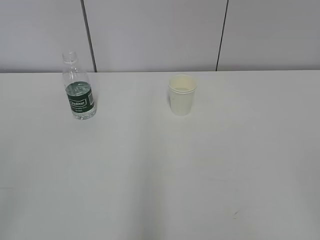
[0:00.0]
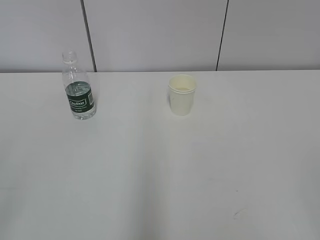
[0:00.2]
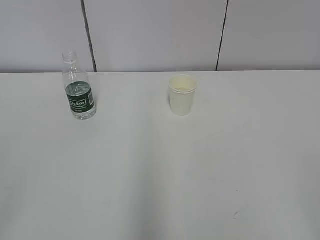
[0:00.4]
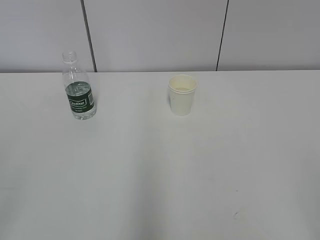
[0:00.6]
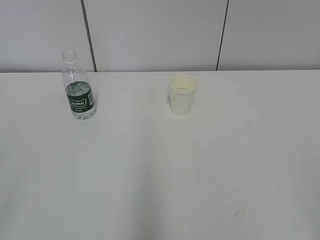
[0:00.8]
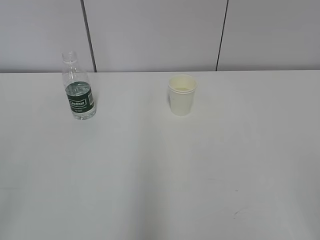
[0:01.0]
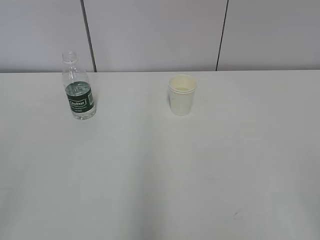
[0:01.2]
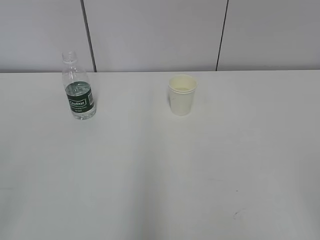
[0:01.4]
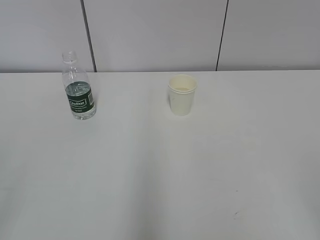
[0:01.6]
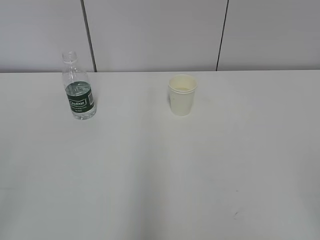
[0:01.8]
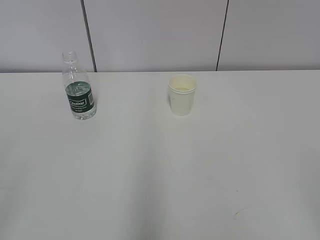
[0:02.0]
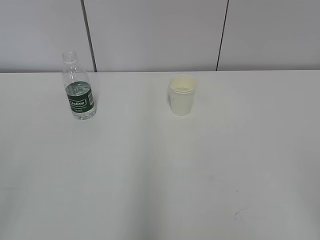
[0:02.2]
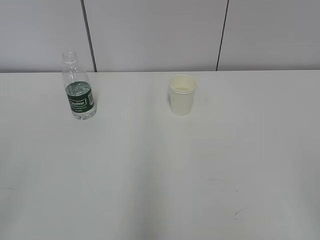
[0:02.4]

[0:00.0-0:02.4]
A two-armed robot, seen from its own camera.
0:01.2 to 0:02.4: Both grippers stay put.

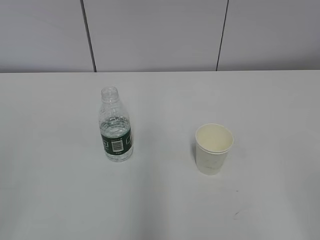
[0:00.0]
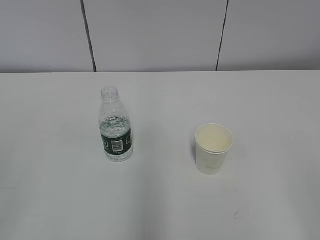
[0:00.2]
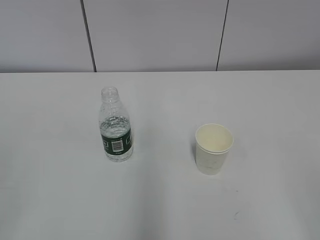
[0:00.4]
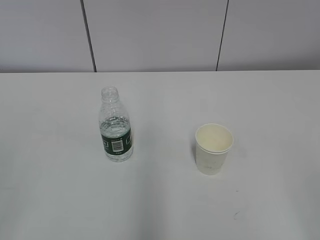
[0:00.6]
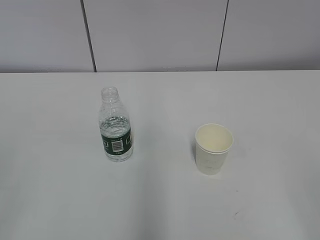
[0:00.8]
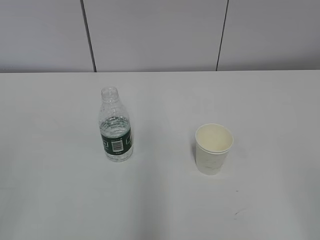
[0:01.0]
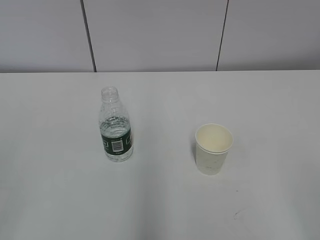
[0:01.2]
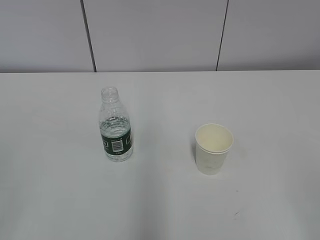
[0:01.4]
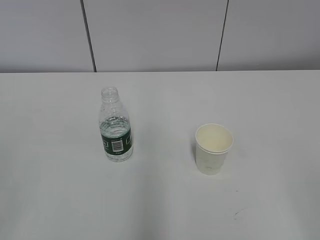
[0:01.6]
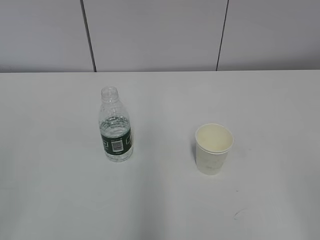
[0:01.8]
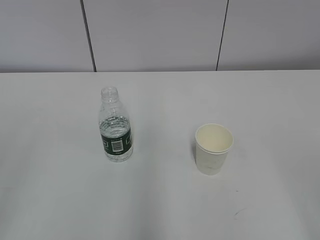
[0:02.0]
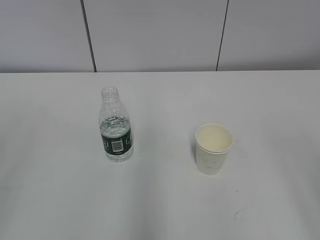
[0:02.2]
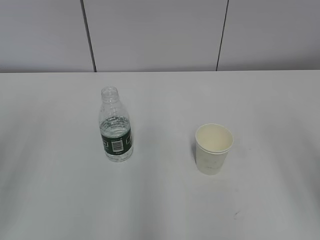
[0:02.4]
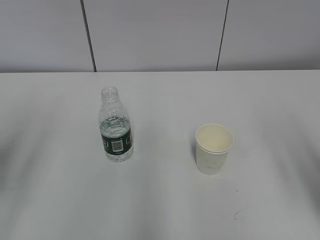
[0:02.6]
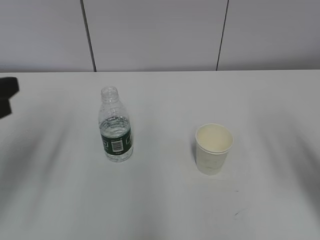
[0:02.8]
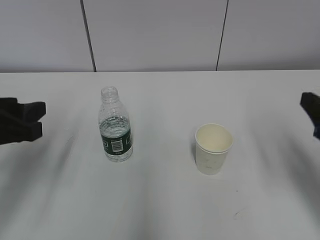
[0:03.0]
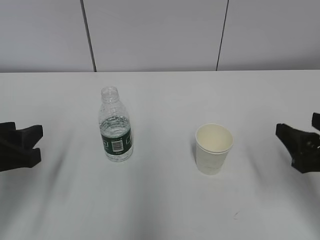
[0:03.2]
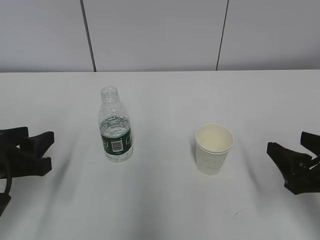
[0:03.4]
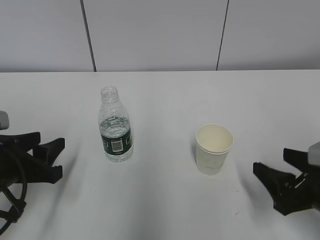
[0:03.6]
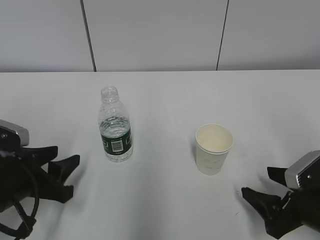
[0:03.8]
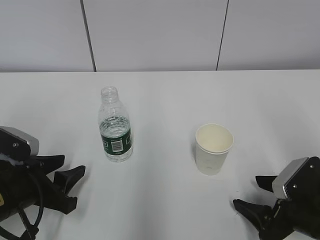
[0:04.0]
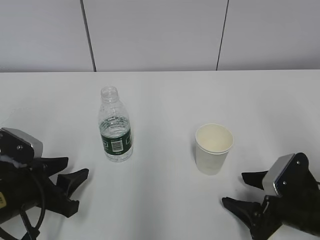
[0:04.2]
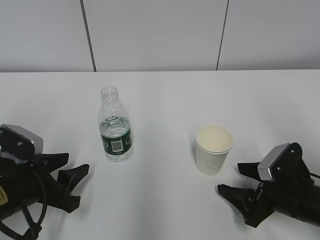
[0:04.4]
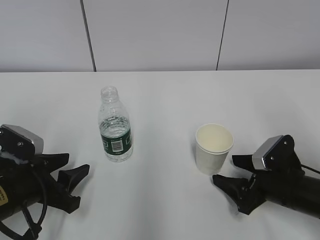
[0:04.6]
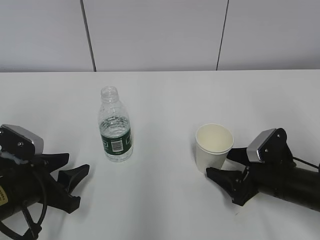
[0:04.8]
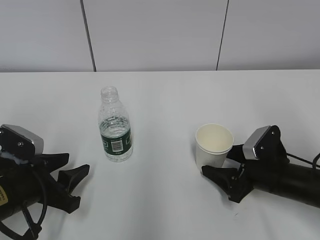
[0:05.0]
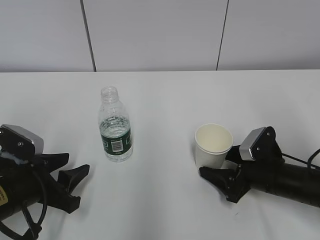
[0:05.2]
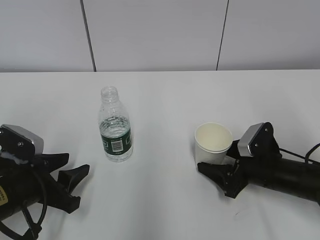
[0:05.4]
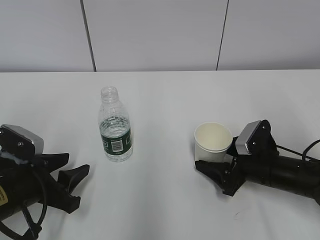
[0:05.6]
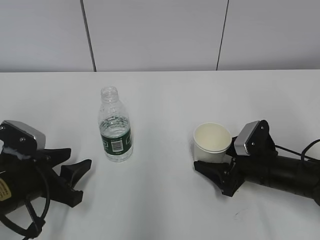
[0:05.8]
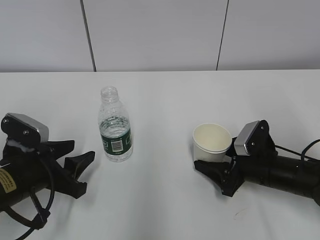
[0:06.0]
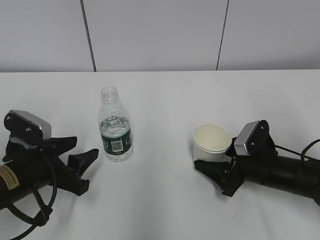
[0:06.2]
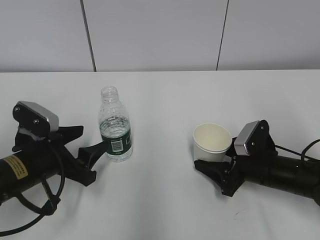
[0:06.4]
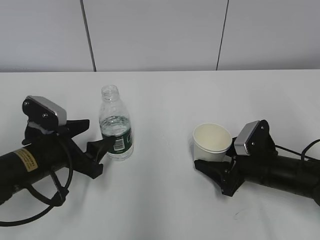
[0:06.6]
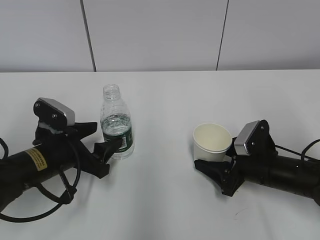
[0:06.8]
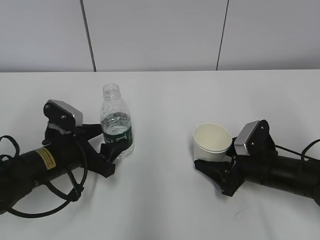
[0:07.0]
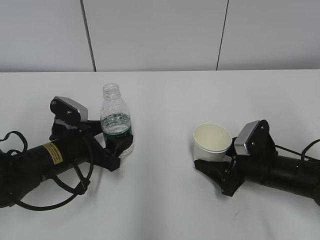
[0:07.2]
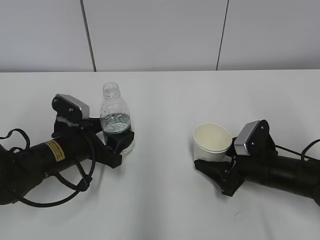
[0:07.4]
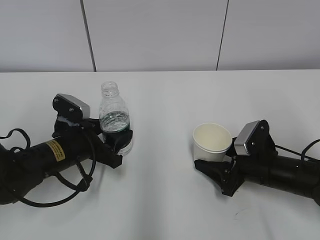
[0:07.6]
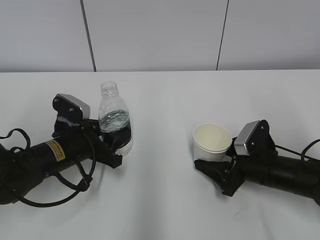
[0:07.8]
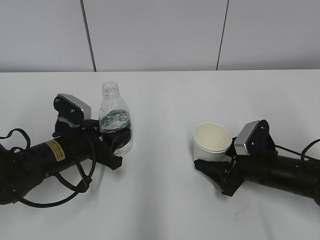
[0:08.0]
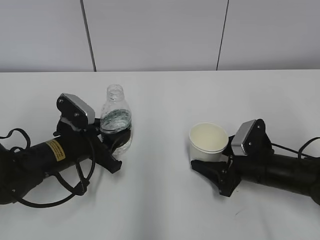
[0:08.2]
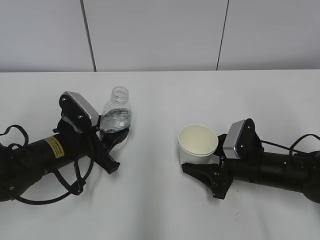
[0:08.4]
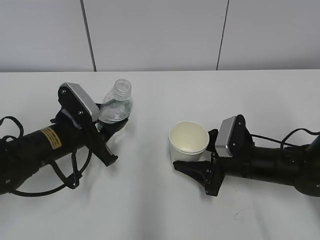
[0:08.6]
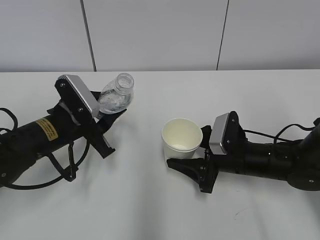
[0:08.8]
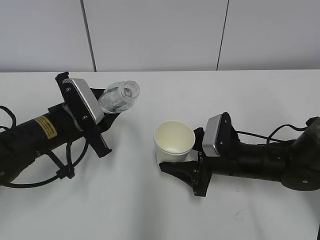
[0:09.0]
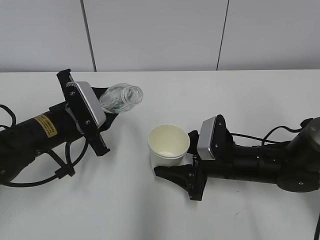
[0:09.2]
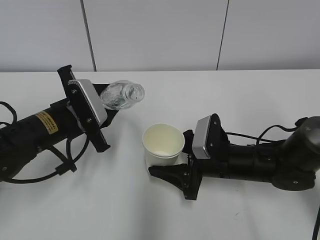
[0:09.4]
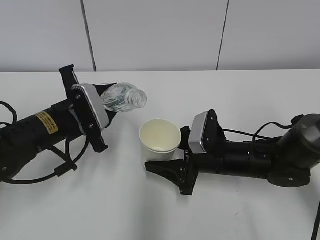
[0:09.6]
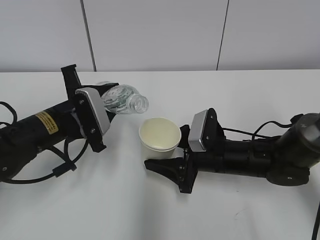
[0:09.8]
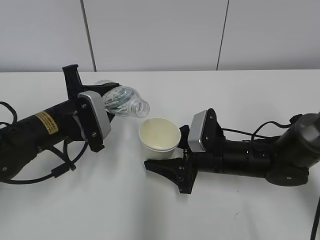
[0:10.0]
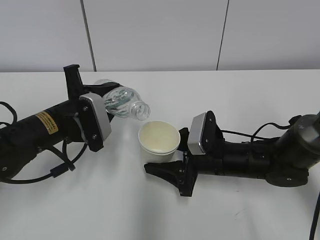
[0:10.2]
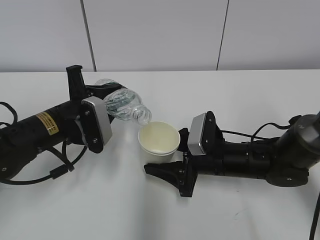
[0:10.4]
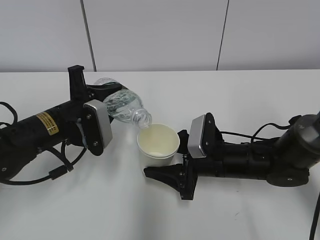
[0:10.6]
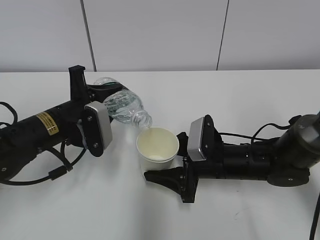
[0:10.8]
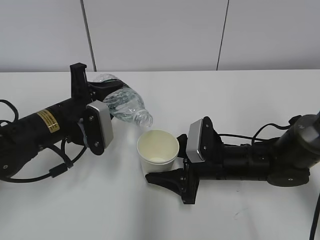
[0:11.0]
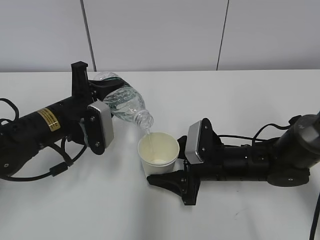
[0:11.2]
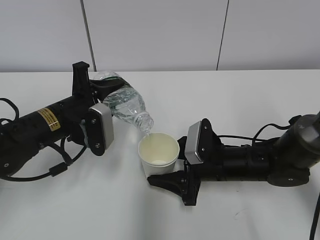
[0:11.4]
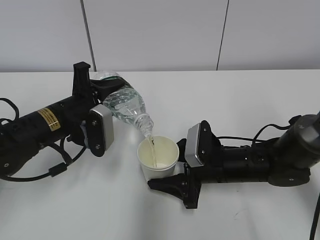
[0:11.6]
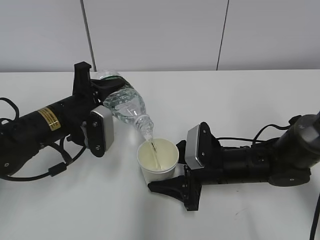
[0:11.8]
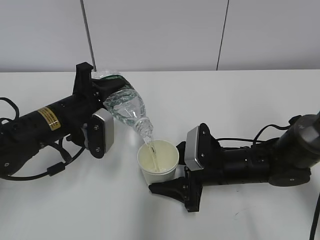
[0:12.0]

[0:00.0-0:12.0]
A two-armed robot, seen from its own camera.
Step, 0:00.0 to 0:06.6: Grab the paper cup with the right hand.
Step, 0:06.8 to 0:09.0: Lift the paper cup with the right hand.
Step, 0:09.2 to 0:12.0: Fill water with the right hand.
Step, 0:09.2 to 0:12.0: Pour water with the left hand.
0:01.6 to 0:03.0: Both grippers move forward, approximately 20 cm.
0:03.0 to 0:04.4: The two grippers go about 15 cm downward.
0:04.4 to 0:06.0: The right gripper goes roughly 5 cm forward.
0:06.0 to 0:07.6: The left gripper goes approximately 10 cm forward.
0:07.6 to 0:09.0: The right gripper shifts about 5 cm to the left. The left gripper goes approximately 5 cm upward, and closes.
0:10.4 to 0:12.0: There are only small adjustments of the grippers.

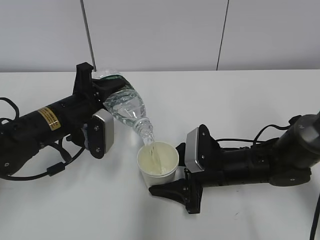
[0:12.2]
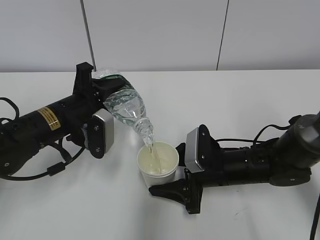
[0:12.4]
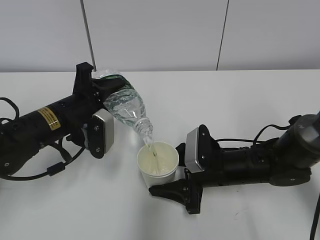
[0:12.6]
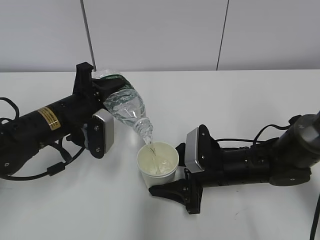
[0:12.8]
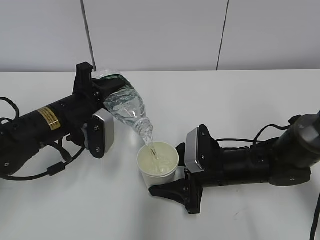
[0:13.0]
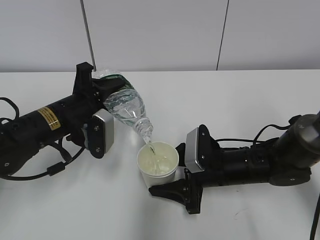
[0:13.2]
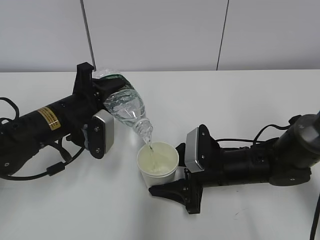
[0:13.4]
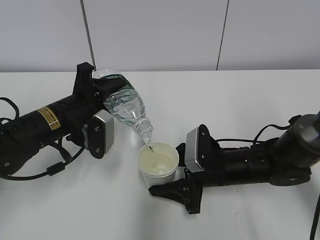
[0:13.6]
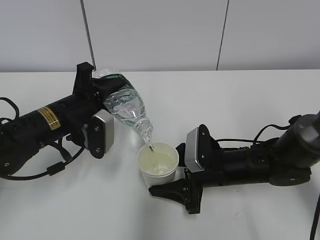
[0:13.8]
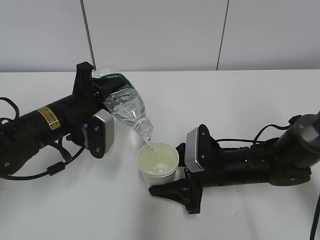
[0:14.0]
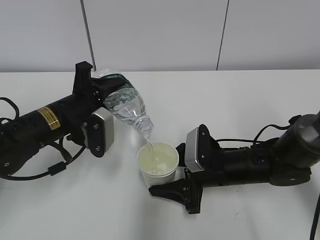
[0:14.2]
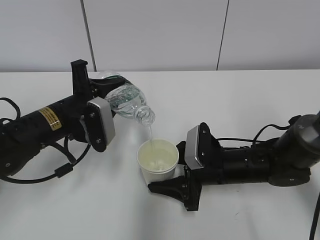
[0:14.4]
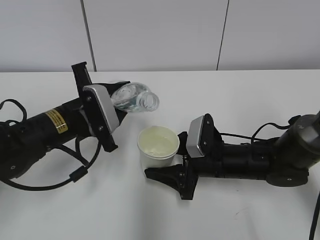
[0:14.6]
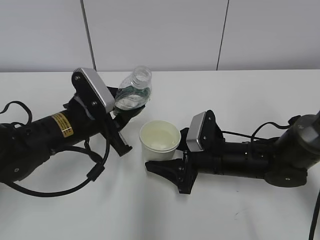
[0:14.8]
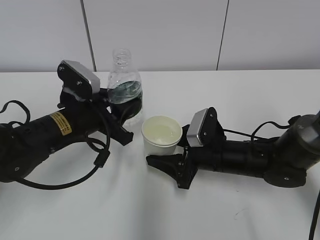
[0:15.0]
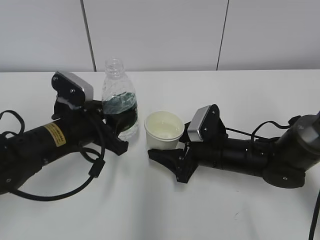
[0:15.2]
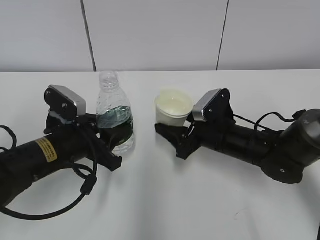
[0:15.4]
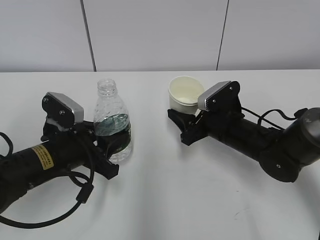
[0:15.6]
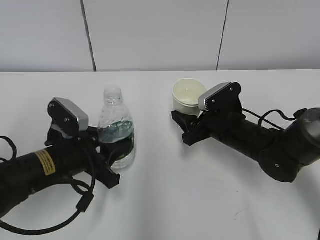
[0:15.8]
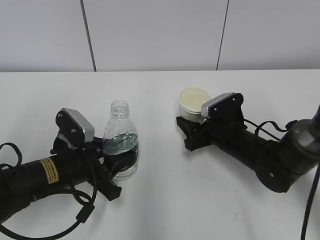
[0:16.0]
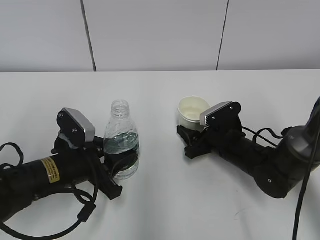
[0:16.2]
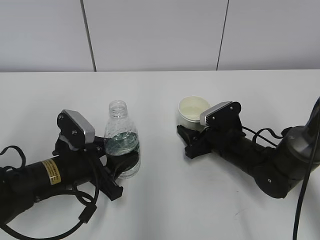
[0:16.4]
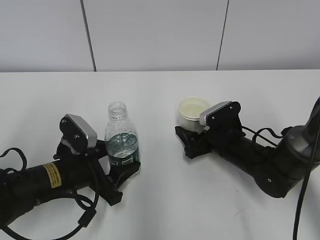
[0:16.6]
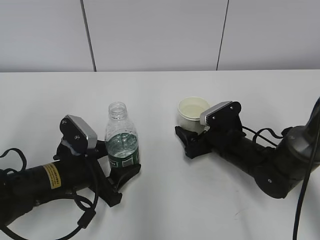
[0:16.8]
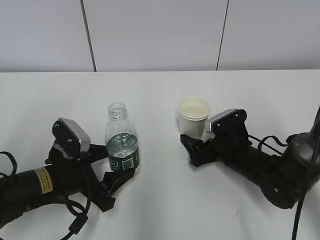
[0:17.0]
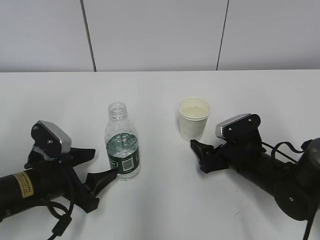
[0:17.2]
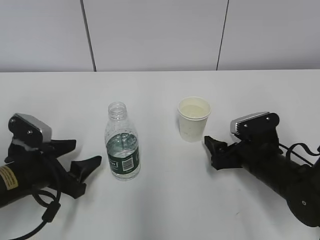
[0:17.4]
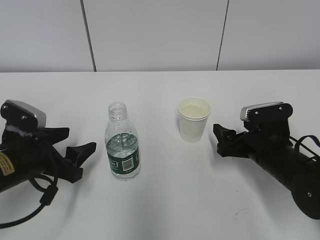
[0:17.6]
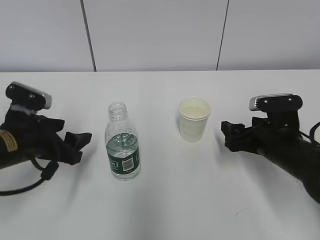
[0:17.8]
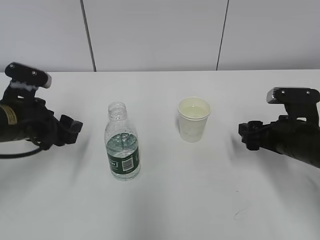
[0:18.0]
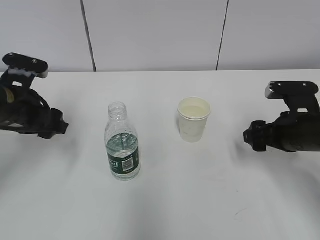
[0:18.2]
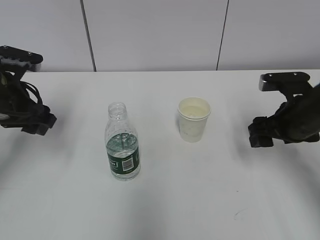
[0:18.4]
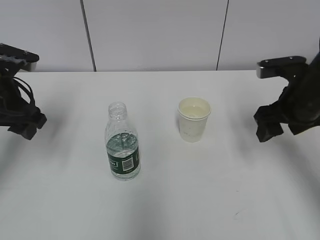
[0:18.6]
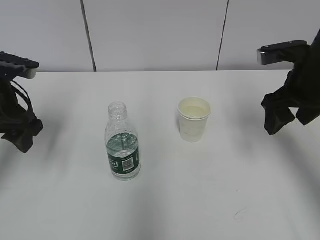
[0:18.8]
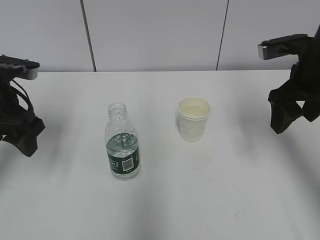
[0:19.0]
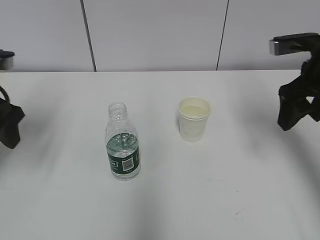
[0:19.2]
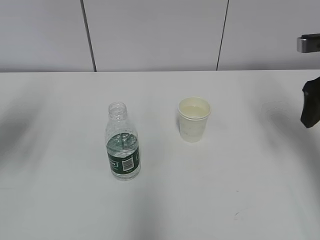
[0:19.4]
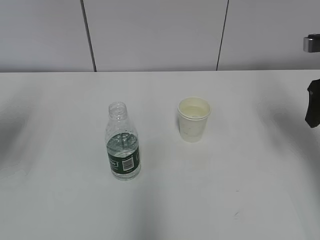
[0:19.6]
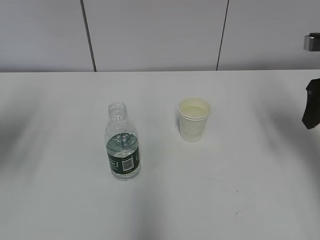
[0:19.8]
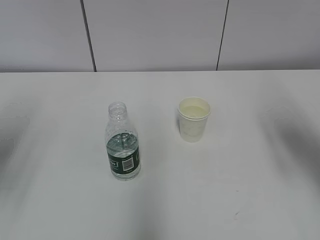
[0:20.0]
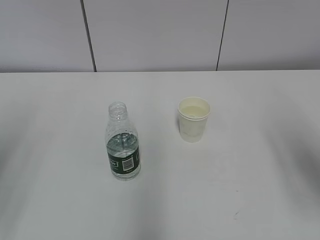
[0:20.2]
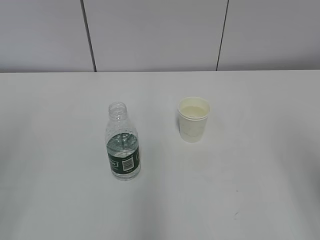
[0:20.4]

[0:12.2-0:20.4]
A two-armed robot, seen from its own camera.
0:12.2 to 0:13.8: Both grippers stay put.
0:15.4 to 0:17.2: The right gripper ends up roughly 5 cm from where it was, and opens, while the left gripper moves roughly 5 cm, and opens up.
0:17.2 to 0:18.8: The right gripper shifts some 20 cm upward, and closes its fingers; the left gripper heads upward, forward and to the left, covering approximately 20 cm.
0:18.8 to 0:20.4: Both grippers travel together backward, about 20 cm.
